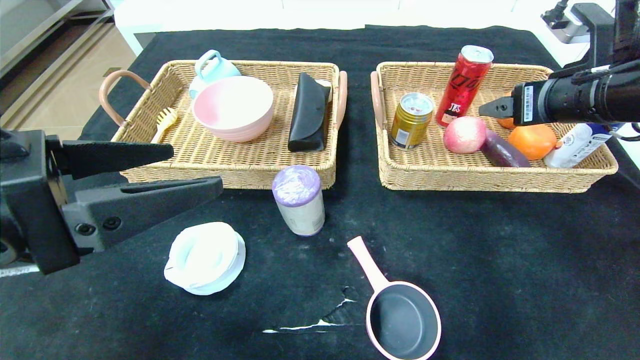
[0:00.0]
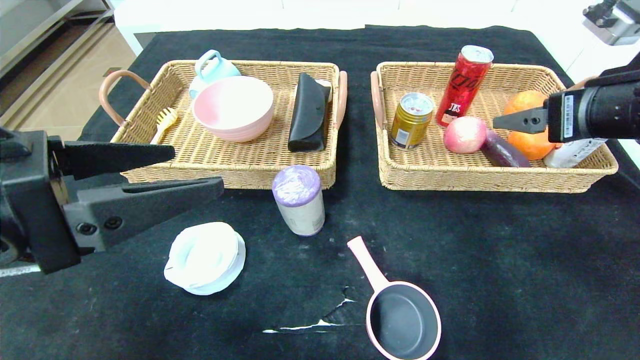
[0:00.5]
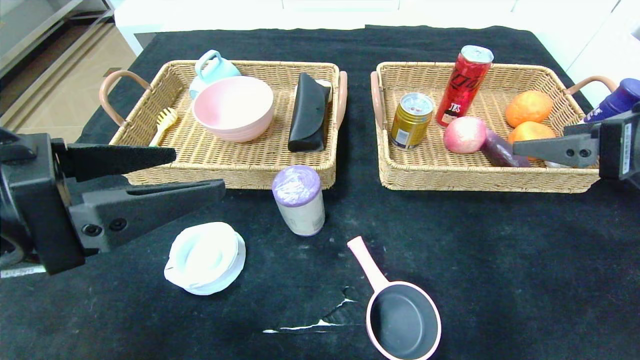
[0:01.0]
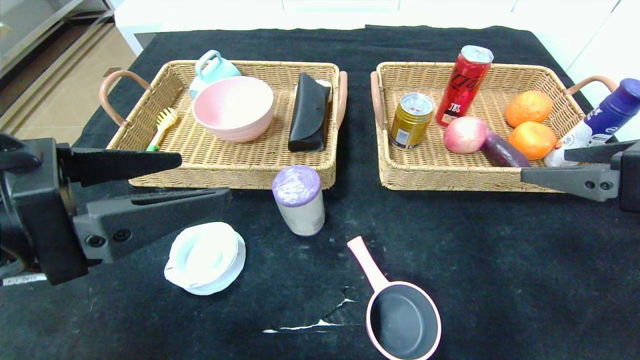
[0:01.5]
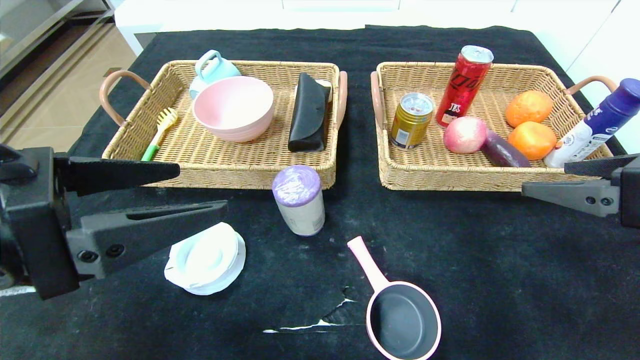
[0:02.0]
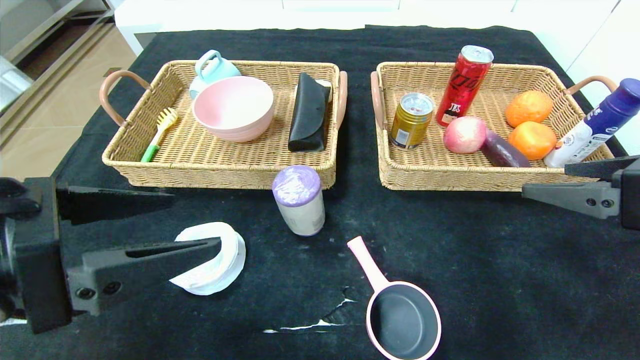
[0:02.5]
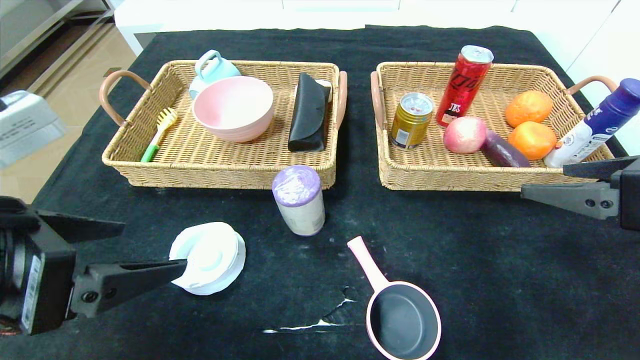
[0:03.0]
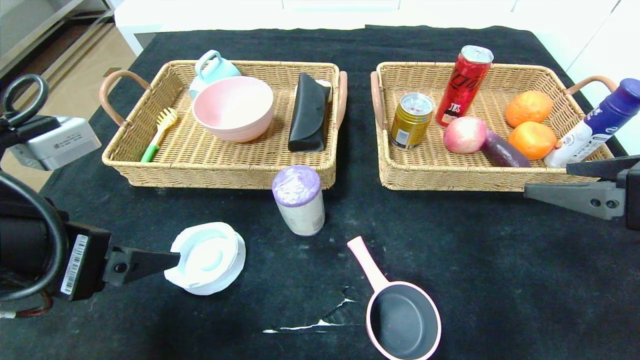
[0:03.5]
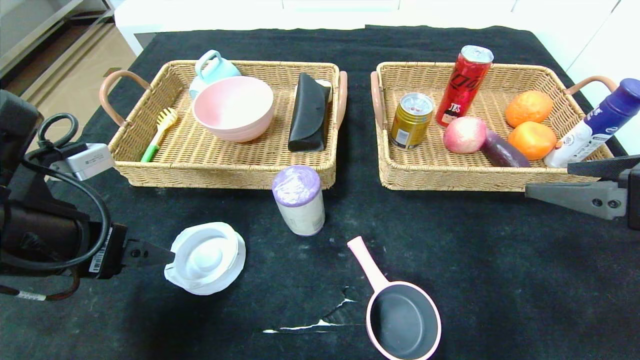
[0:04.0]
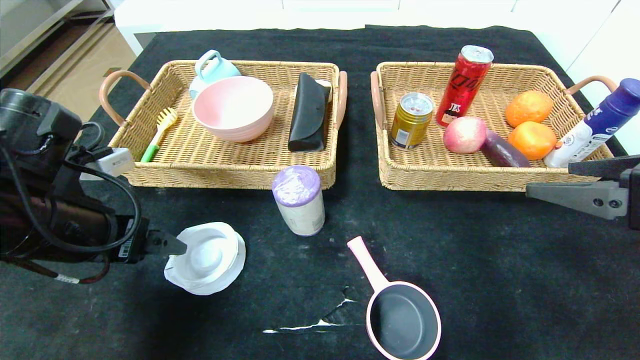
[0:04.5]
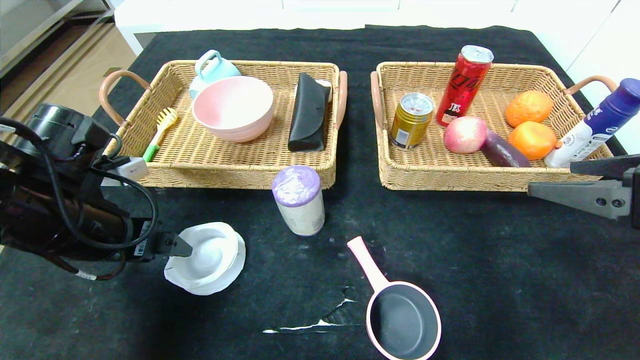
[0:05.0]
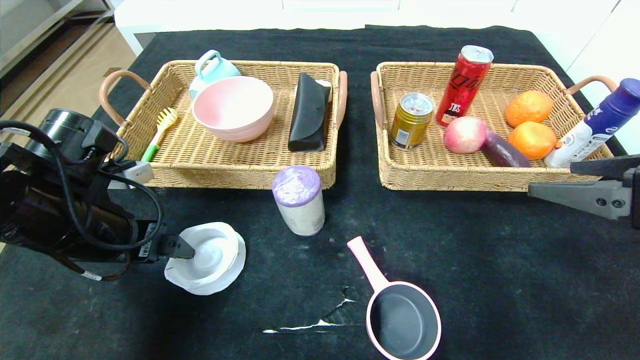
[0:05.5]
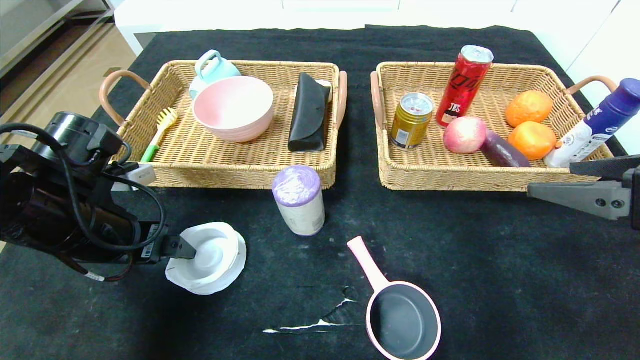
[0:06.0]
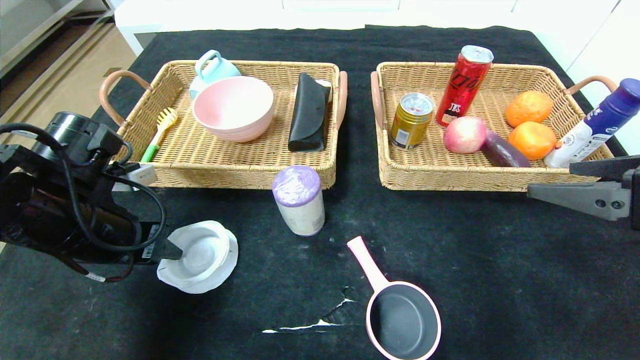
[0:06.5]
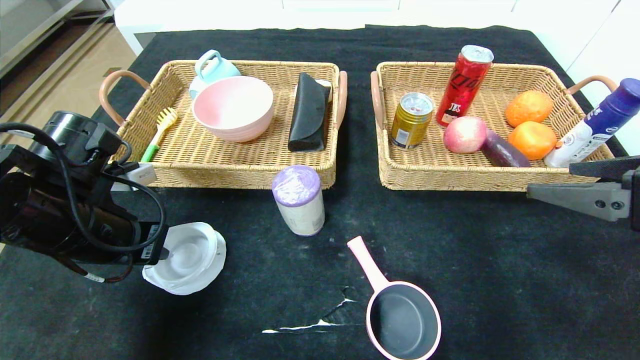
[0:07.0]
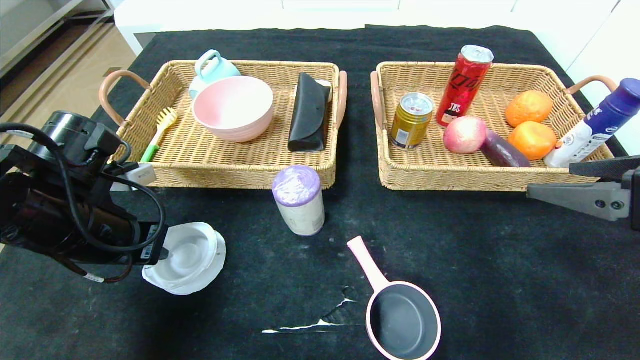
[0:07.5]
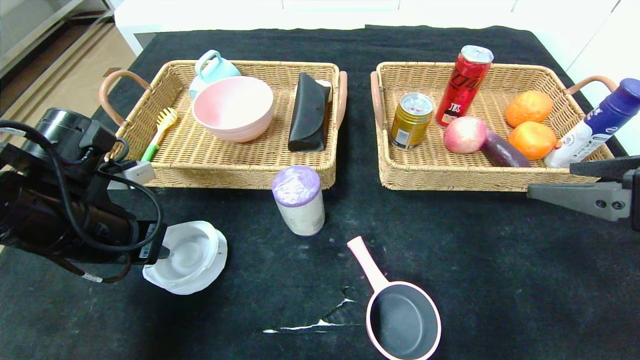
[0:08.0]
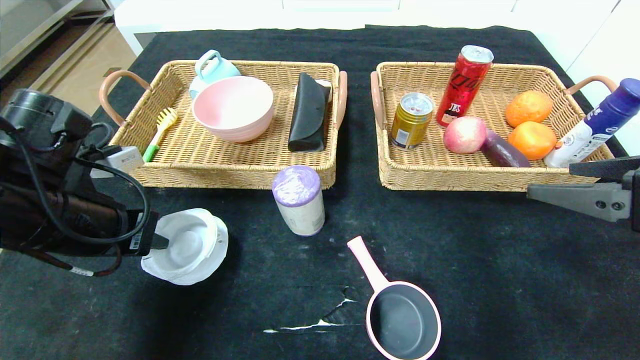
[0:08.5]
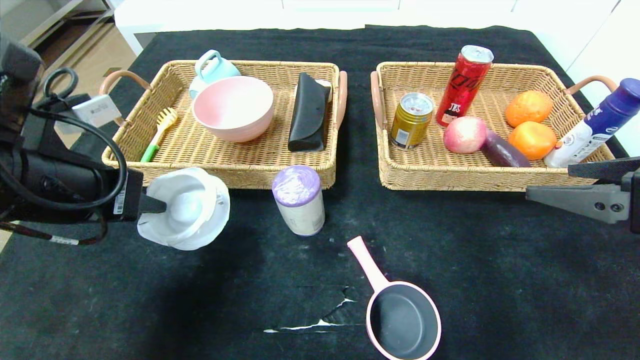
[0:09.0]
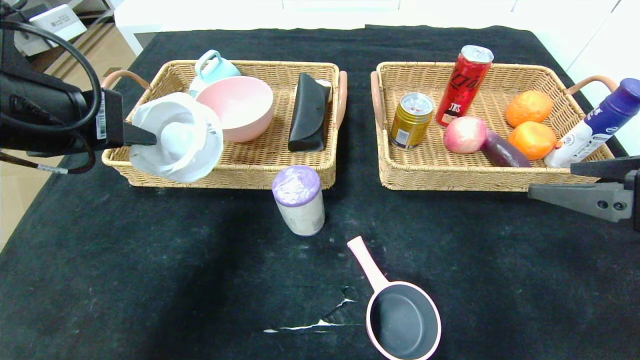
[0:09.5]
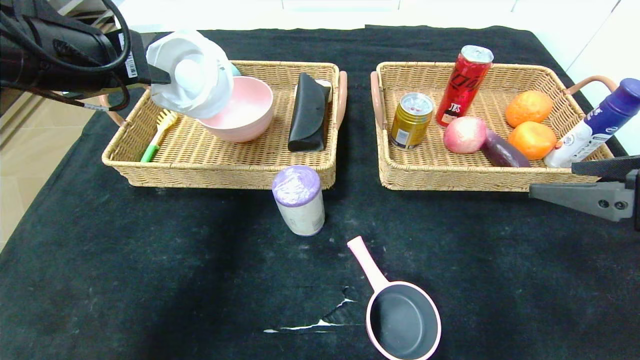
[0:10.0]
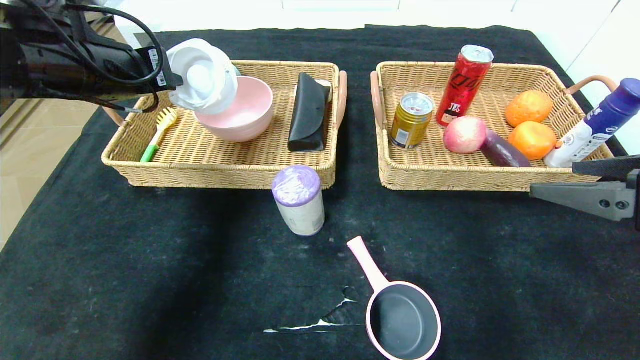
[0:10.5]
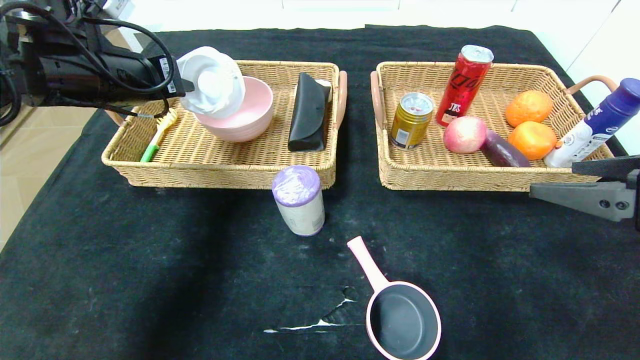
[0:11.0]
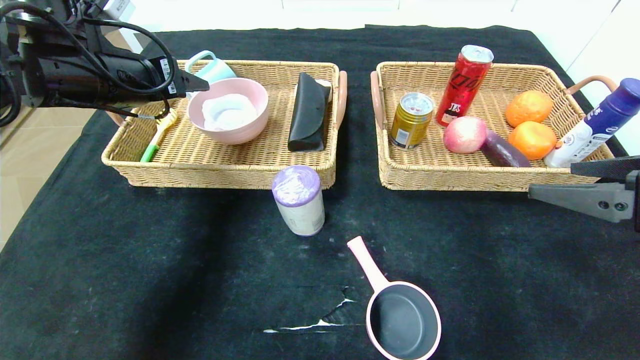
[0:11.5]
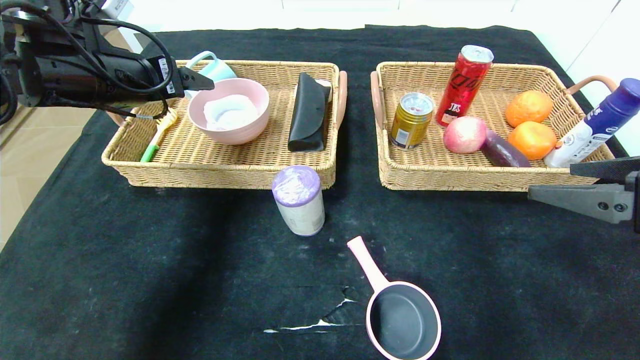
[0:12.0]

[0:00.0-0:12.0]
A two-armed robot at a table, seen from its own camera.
Step, 0:00.0 to 0:03.0: Pick up the orange and put it in the right basket.
0:00.0 to 0:02.0: The right gripper goes about 10 cm backward.
0:02.0 to 0:04.0: The left gripper goes approximately 5 cm forward.
0:04.0 to 0:06.0: The left gripper travels forward by some 5 cm.
0:06.0 to 0:08.0: The left gripper closes.
0:08.0 to 0:10.0: The left gripper heads upward, covering some 15 cm.
0:10.0 to 0:12.0: The left gripper heads forward, covering about 5 cm, and opens its fingers.

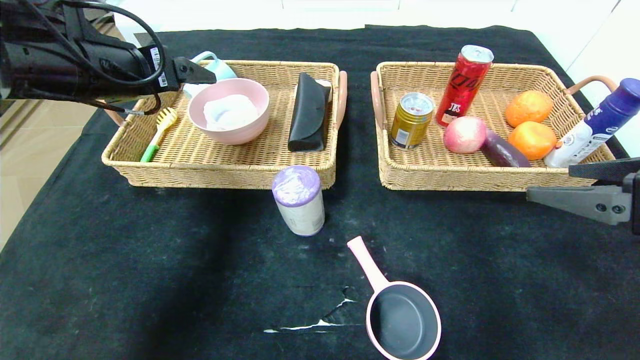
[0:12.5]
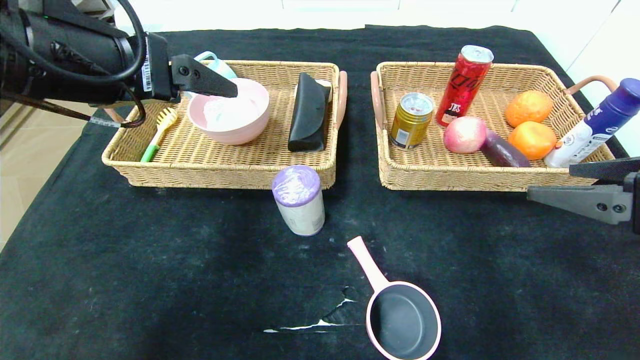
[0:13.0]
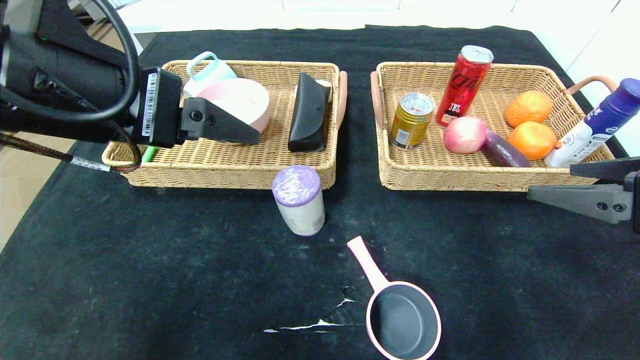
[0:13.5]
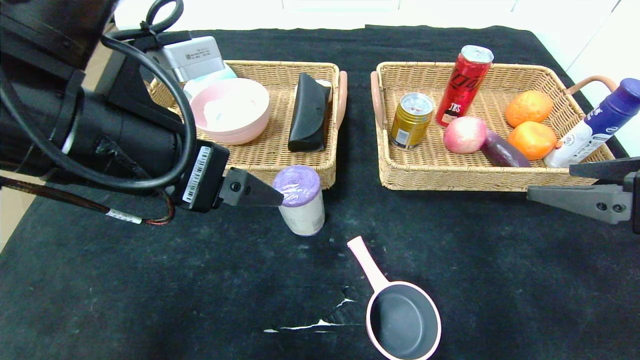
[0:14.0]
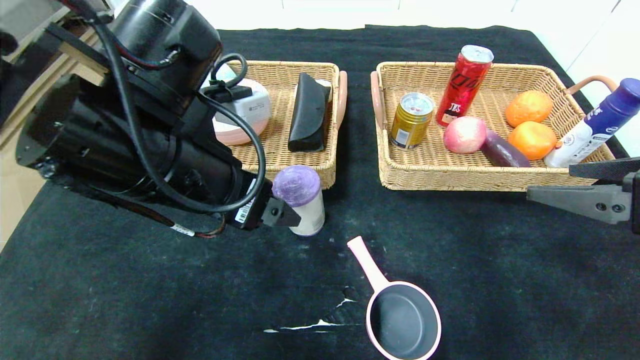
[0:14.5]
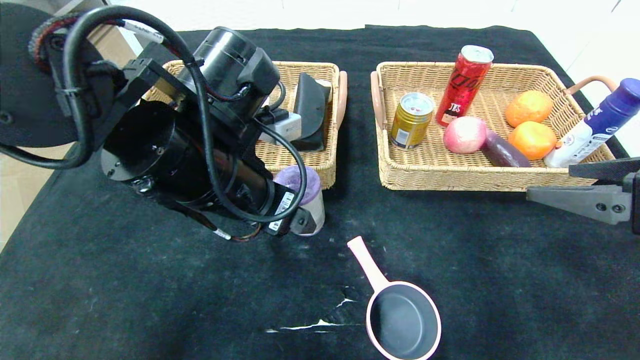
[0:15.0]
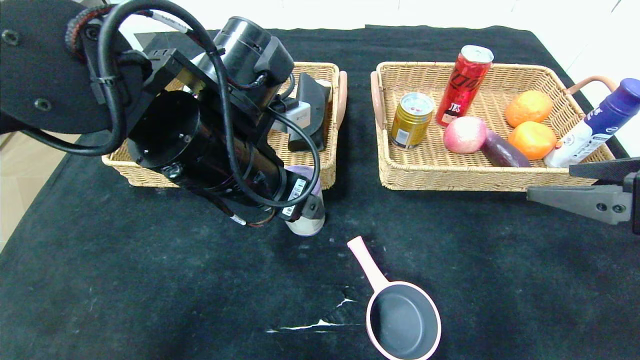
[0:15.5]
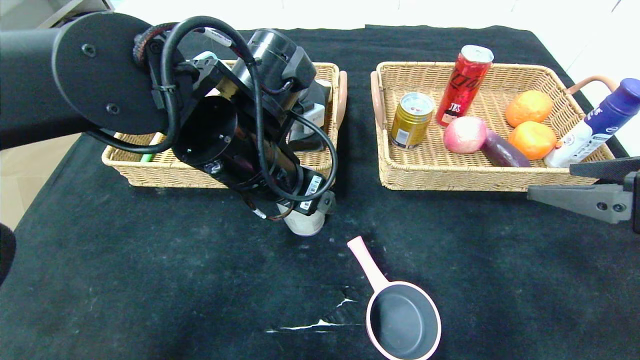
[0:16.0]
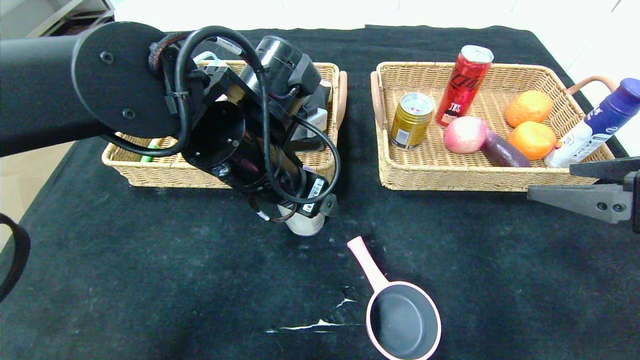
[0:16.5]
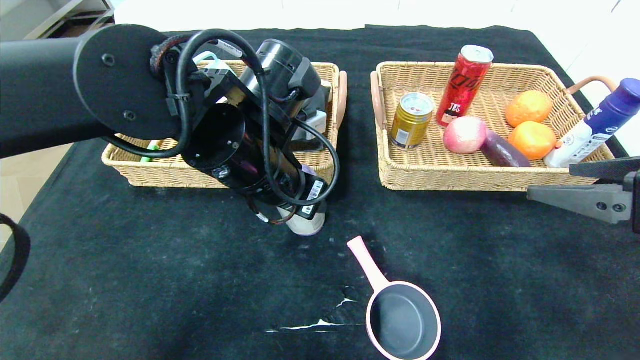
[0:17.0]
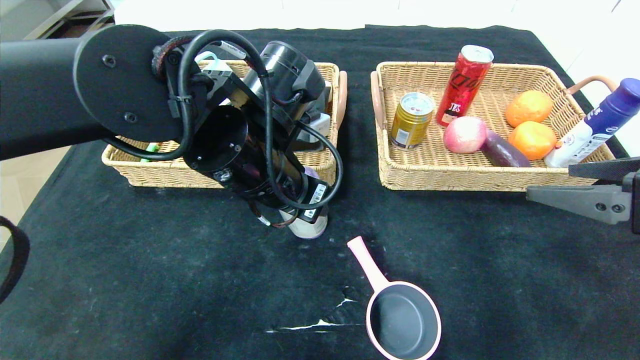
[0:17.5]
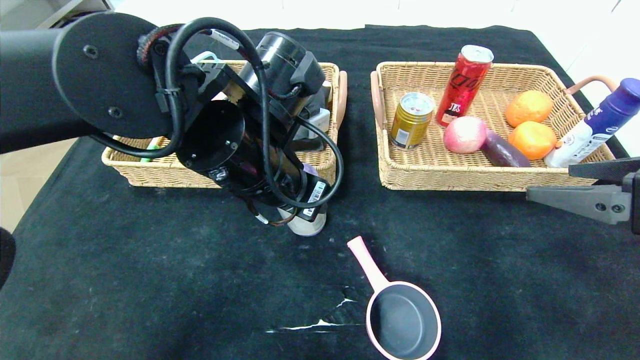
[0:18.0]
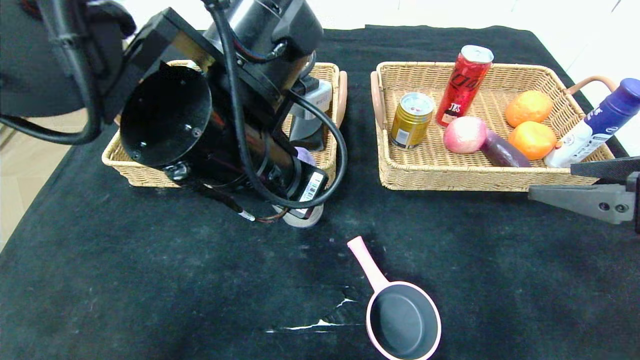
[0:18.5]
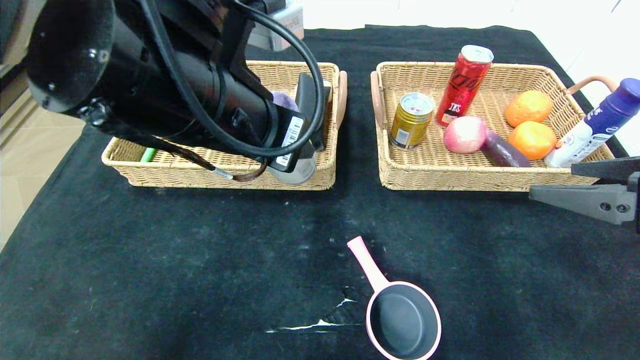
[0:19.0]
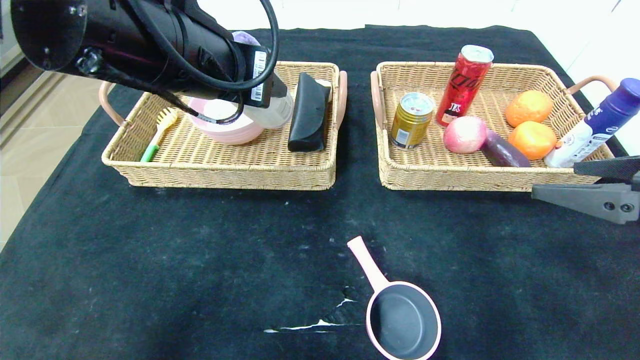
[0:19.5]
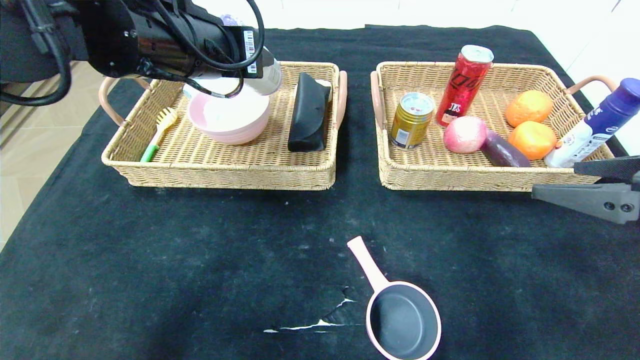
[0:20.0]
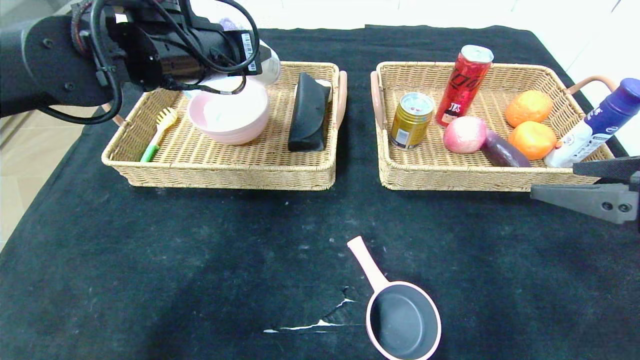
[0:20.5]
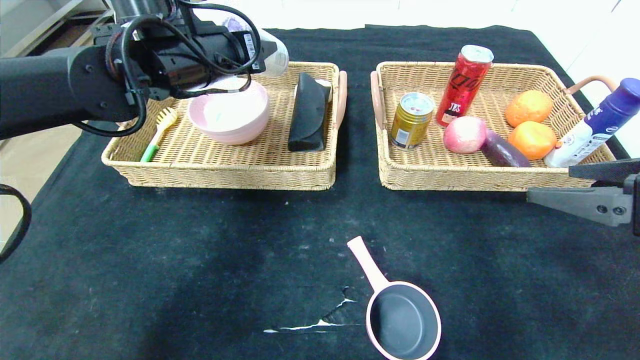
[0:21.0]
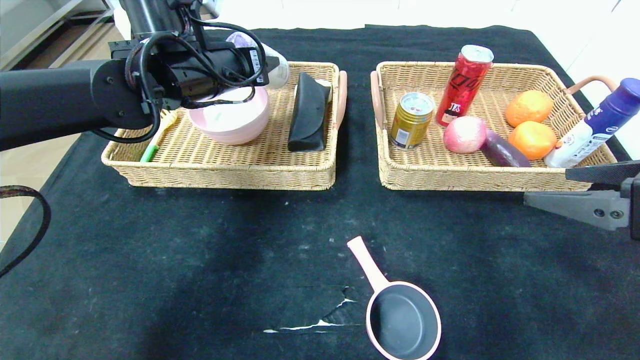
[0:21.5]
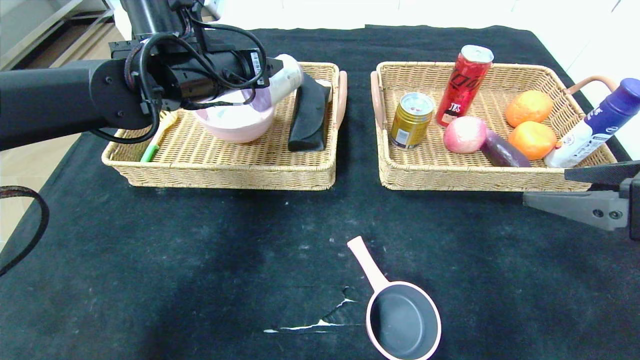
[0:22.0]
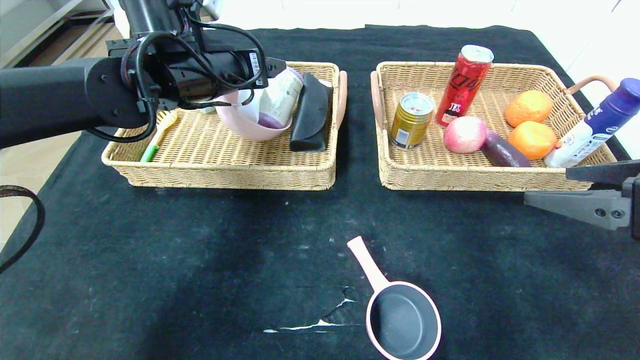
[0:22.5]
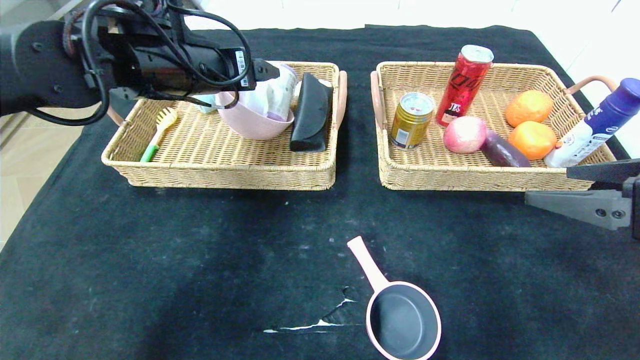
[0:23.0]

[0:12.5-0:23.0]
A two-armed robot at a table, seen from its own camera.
Step, 0:12.5 to 0:14.5: Pick up the tape and put it in the left basket.
0:12.5 to 0:14.5: The left gripper heads to the right, backward and downward, covering some 15 cm.
0:14.5 to 0:16.5: The left gripper goes about 10 cm to the right and forward.
0:16.5 to 0:19.0: The left gripper is displaced upward and backward by some 10 cm, and closes its fingers.
0:19.0 to 0:21.0: The left gripper heads forward and to the left, covering approximately 20 cm.
0:21.0 to 0:23.0: The left gripper opens up.
